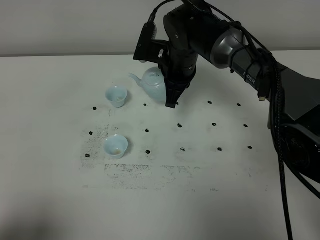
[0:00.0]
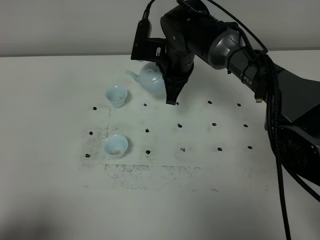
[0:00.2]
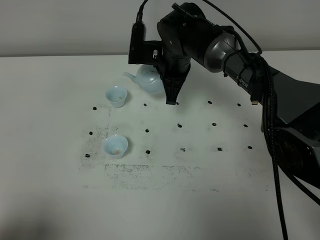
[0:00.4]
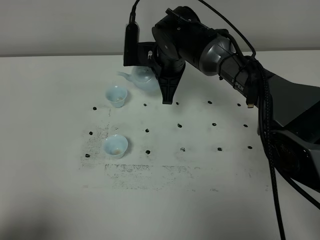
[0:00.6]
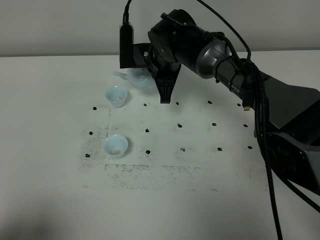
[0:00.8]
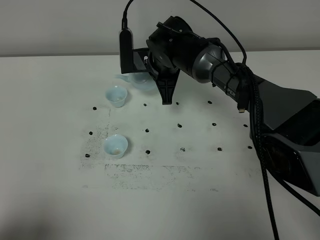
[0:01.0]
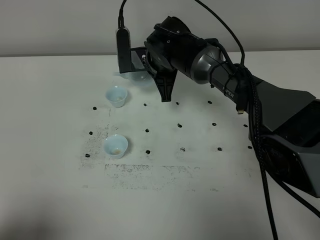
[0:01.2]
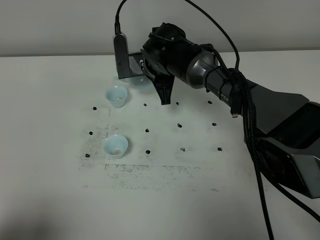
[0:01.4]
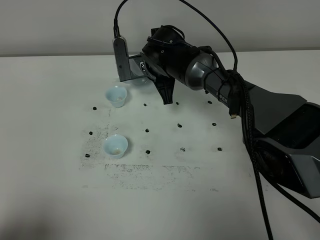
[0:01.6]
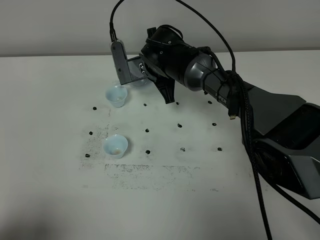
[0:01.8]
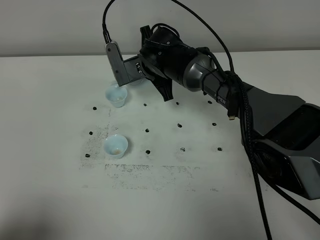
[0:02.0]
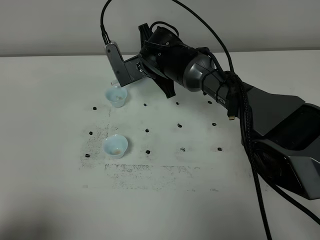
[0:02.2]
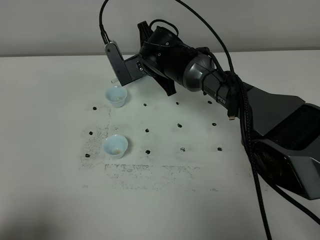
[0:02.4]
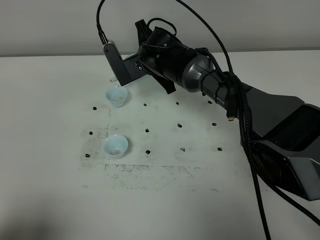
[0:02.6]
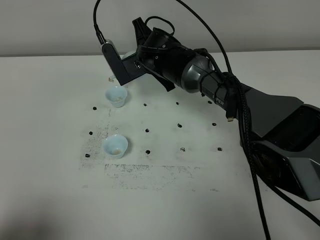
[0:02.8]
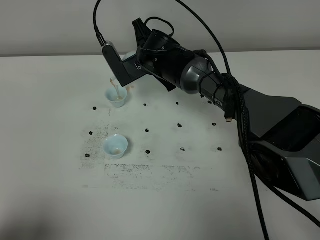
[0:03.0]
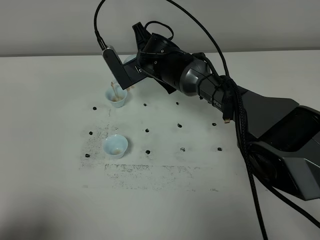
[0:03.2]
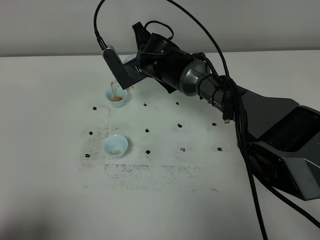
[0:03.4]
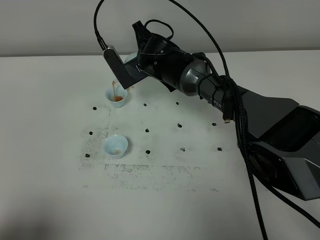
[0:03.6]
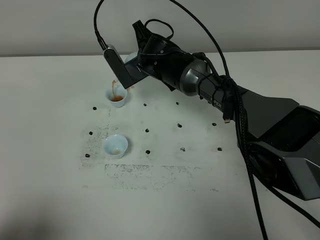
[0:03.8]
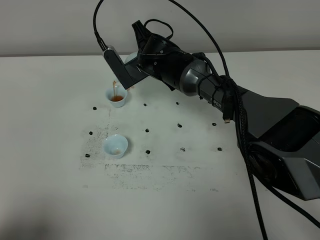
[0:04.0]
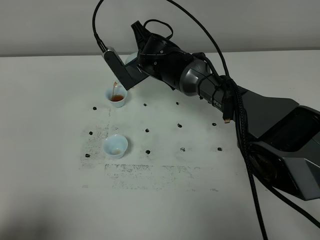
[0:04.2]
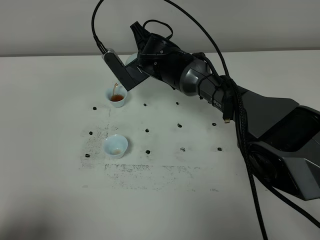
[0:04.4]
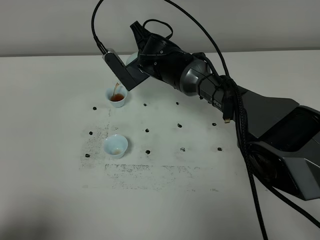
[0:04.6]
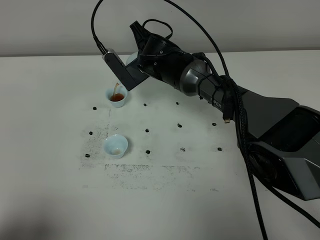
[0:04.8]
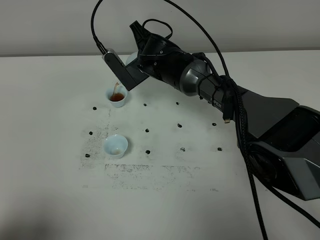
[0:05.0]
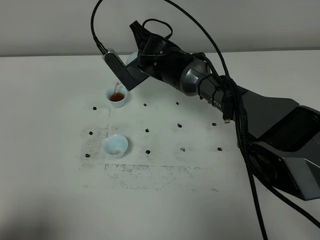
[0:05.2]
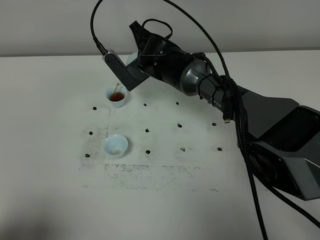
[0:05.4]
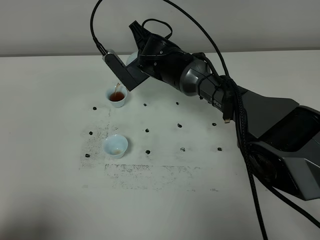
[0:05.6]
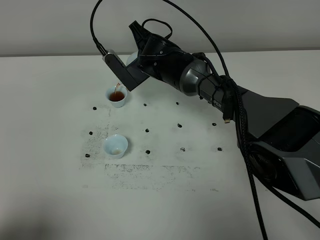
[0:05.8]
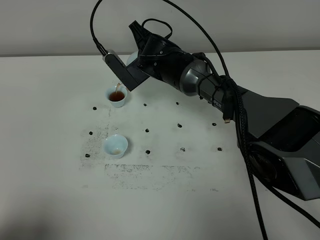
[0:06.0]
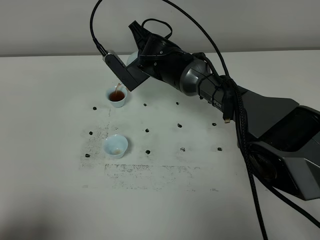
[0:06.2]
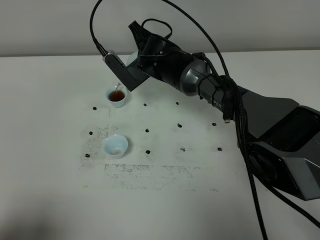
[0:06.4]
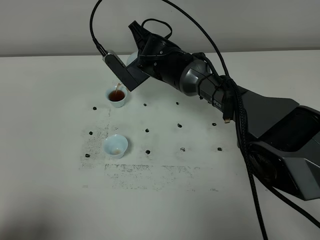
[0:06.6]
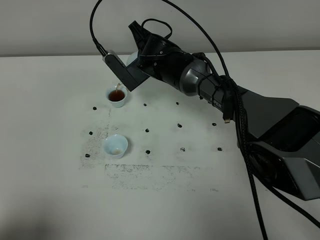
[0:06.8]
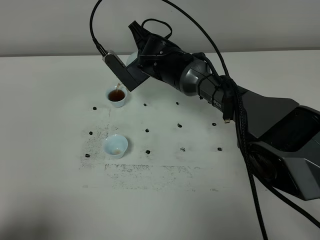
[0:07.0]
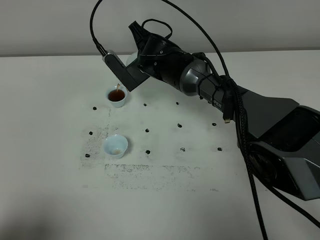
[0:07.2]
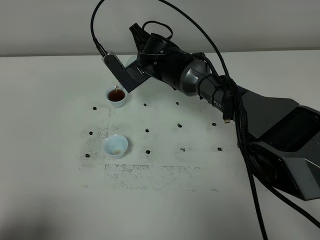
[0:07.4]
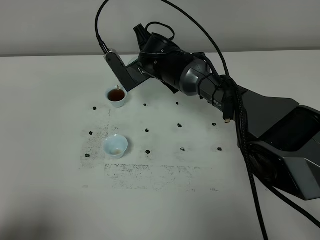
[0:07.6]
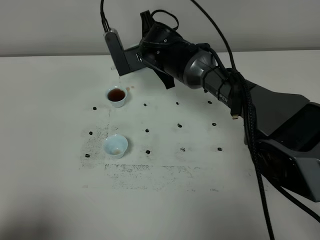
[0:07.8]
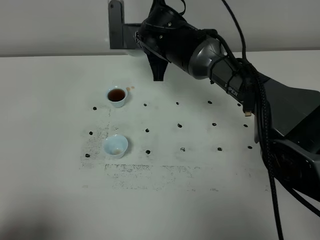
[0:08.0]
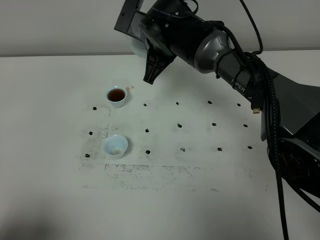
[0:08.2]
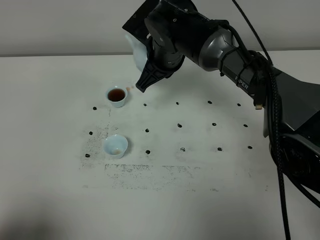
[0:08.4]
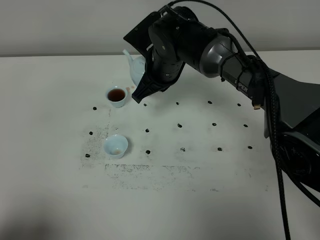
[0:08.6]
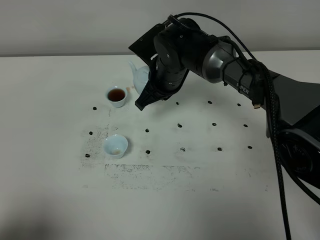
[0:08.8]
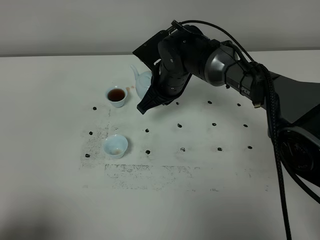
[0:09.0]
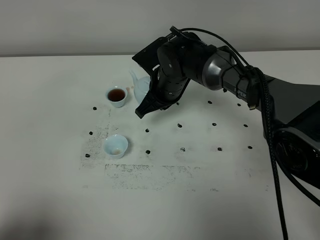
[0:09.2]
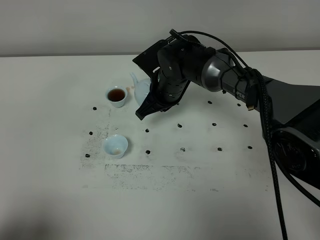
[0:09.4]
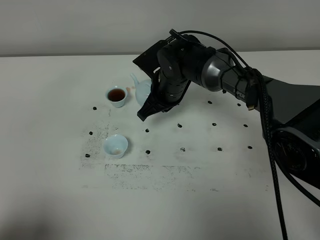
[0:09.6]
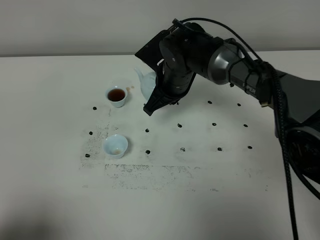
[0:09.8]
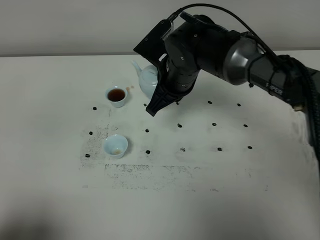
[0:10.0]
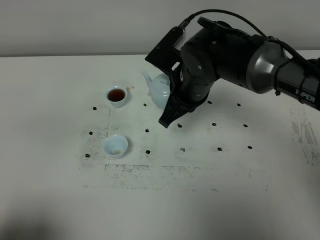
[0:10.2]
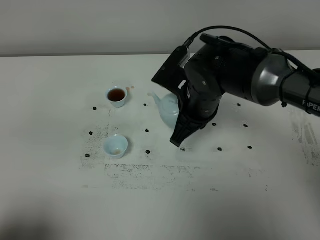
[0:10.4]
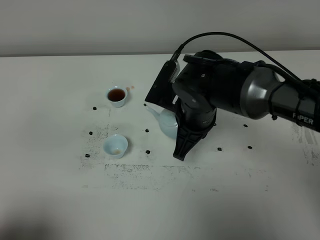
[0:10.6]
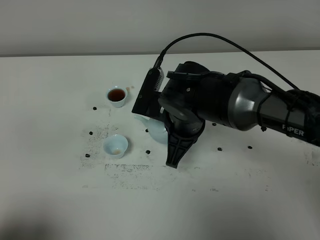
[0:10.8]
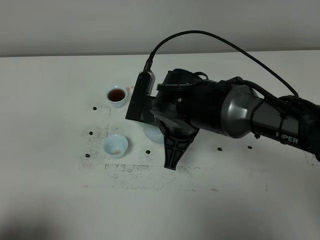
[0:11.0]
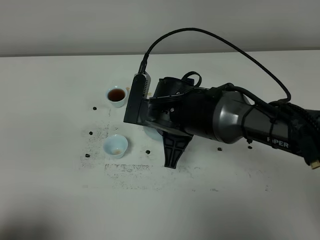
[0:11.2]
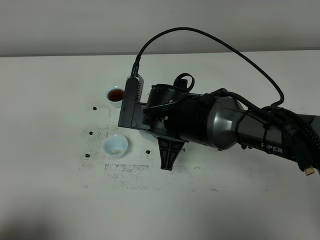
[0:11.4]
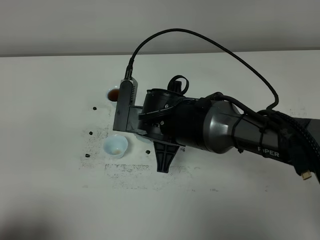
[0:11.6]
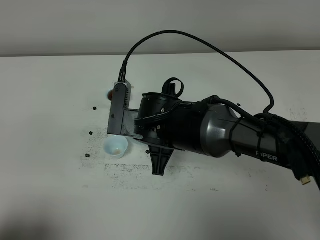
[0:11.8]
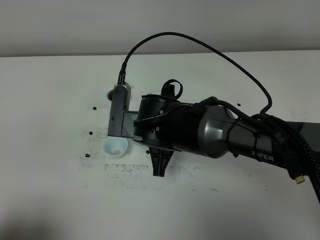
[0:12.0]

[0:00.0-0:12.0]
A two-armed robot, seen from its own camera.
Task of the whole recording: grasp the blue porcelain teapot and pour the tea into the two blue porcelain teacups one by one, put the blue porcelain teapot back in its original place.
0:00.0 to 0:01.6: The right gripper ends up approximately 5 cm from where it was.
0:03.0 to 0:04.4: The grippers move only a little.
0:04.4 to 0:06.0: Neither gripper changes place.
0:06.0 to 0:07.6: The grippers make only small movements.
0:07.6 to 0:09.0: The right gripper travels upward and back again, some 5 cm each way.
0:09.0 to 0:10.4: The right gripper shifts about 10 cm backward.
0:10.4 to 0:12.0: The right gripper moves to the left, approximately 5 cm.

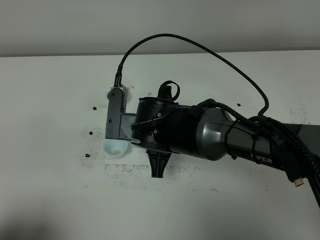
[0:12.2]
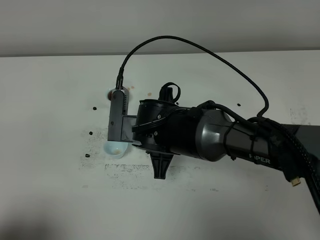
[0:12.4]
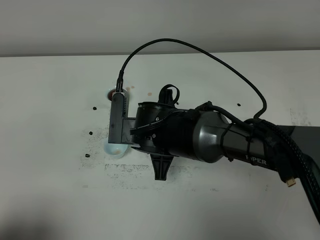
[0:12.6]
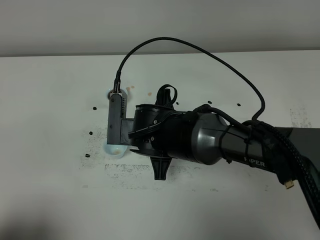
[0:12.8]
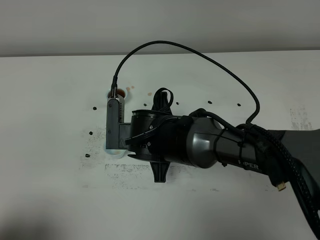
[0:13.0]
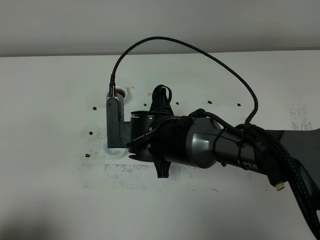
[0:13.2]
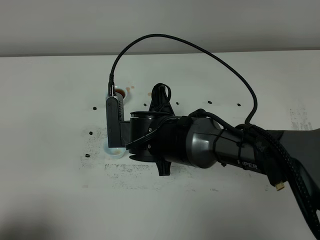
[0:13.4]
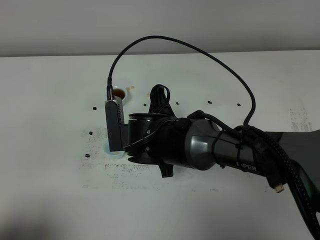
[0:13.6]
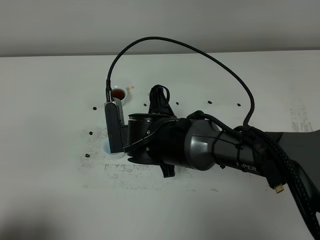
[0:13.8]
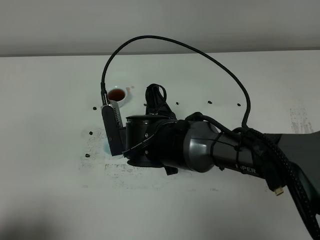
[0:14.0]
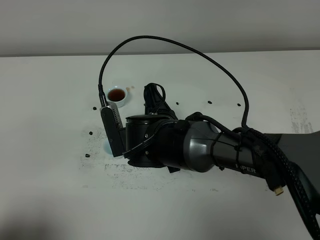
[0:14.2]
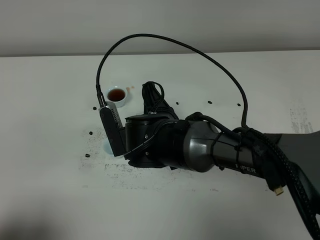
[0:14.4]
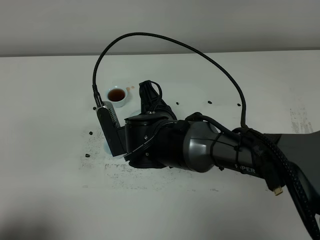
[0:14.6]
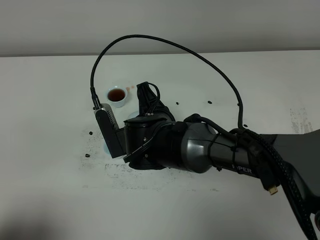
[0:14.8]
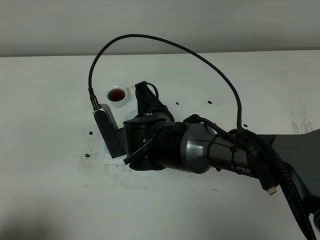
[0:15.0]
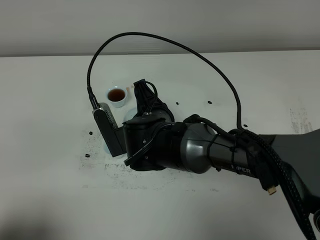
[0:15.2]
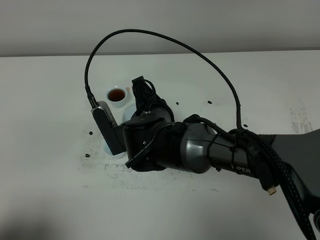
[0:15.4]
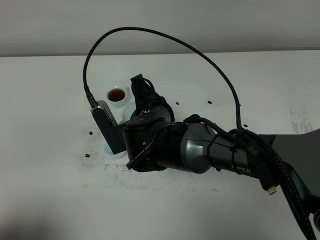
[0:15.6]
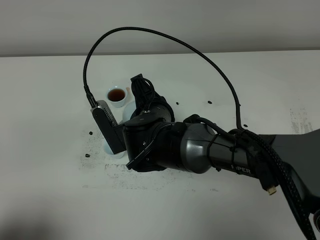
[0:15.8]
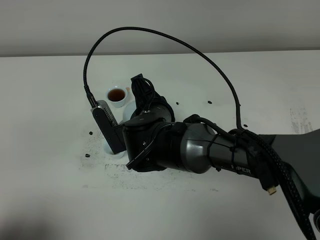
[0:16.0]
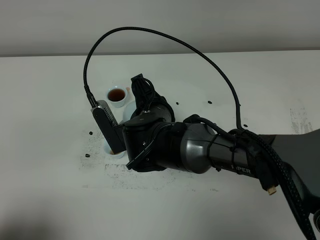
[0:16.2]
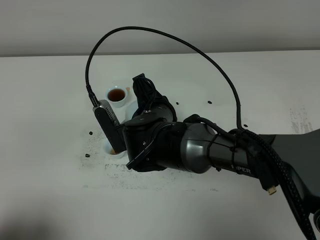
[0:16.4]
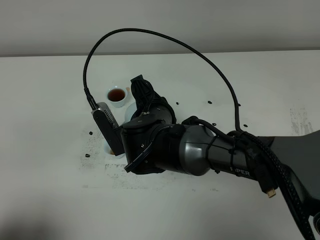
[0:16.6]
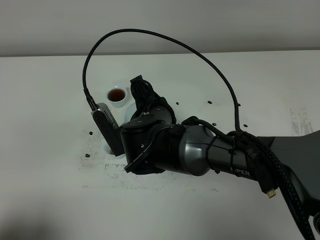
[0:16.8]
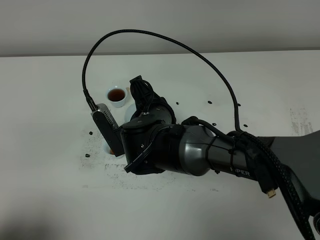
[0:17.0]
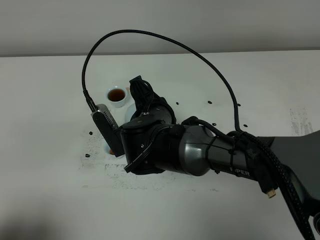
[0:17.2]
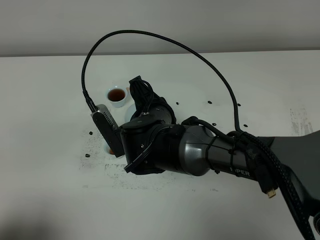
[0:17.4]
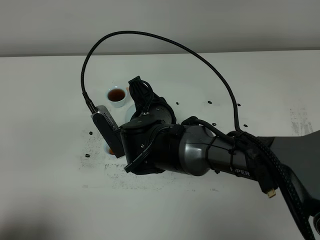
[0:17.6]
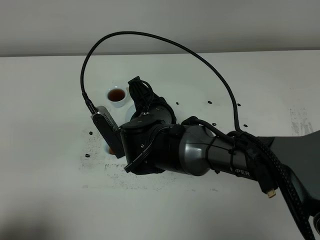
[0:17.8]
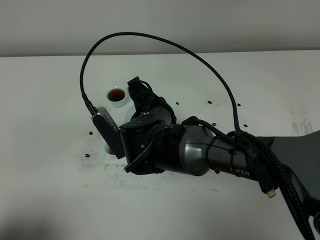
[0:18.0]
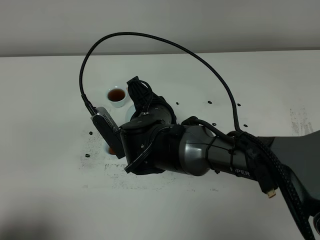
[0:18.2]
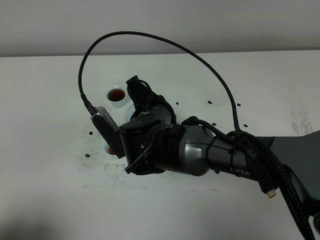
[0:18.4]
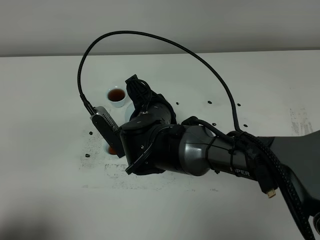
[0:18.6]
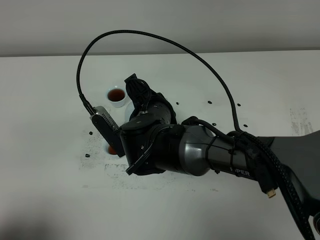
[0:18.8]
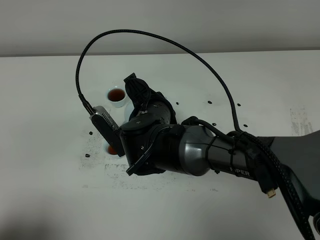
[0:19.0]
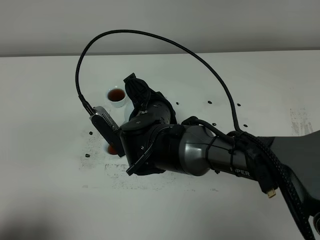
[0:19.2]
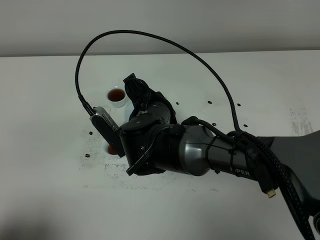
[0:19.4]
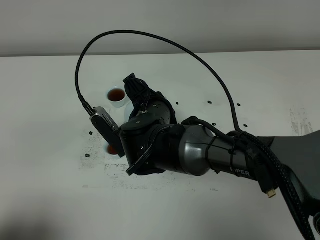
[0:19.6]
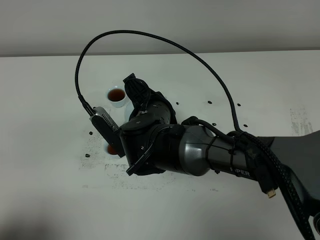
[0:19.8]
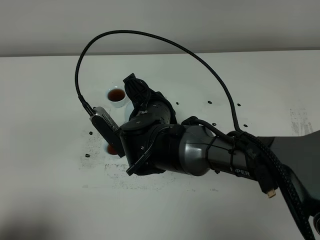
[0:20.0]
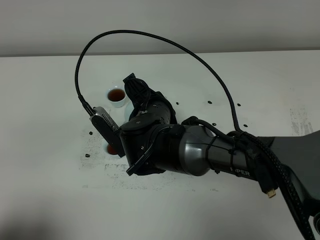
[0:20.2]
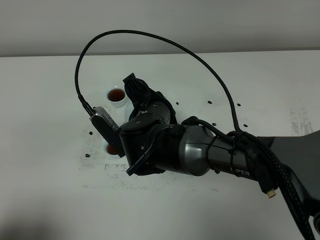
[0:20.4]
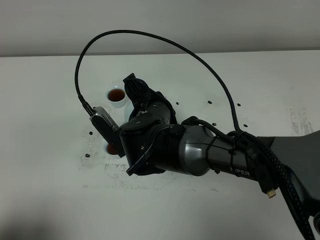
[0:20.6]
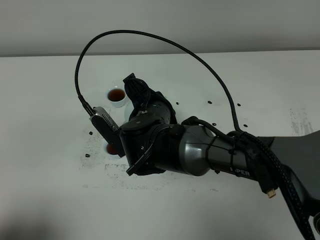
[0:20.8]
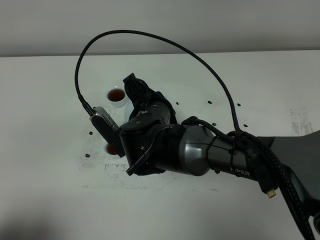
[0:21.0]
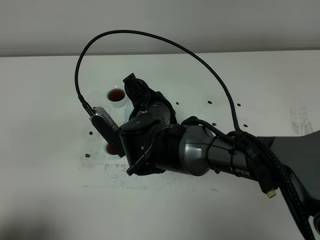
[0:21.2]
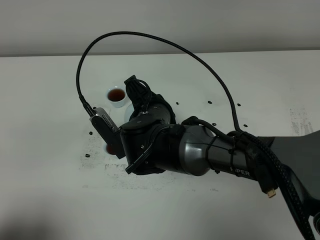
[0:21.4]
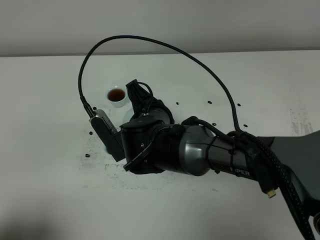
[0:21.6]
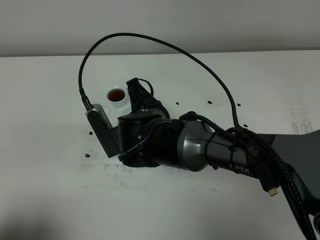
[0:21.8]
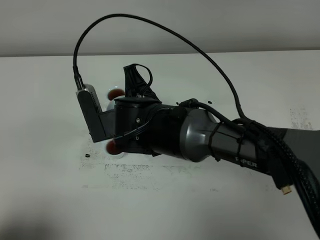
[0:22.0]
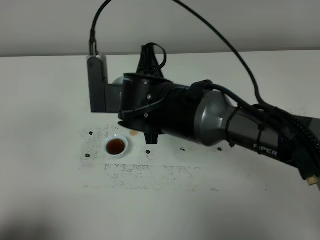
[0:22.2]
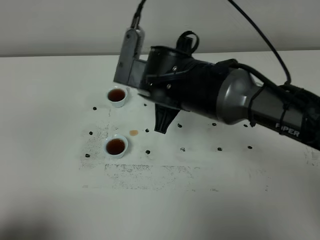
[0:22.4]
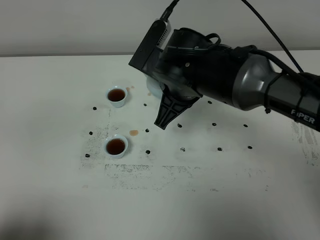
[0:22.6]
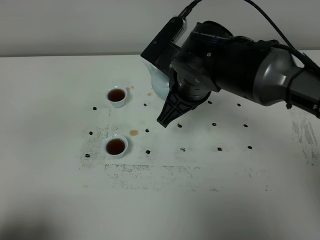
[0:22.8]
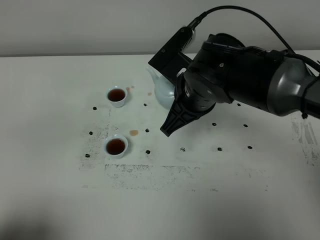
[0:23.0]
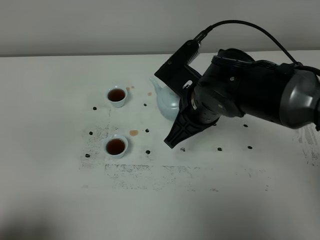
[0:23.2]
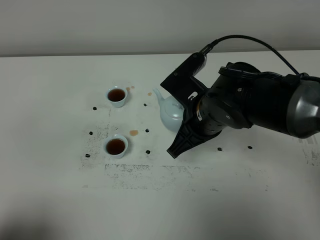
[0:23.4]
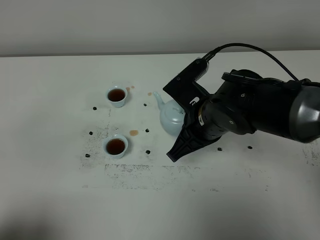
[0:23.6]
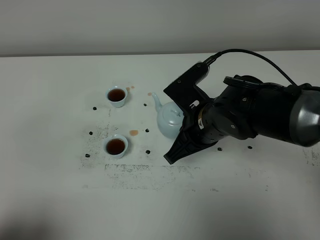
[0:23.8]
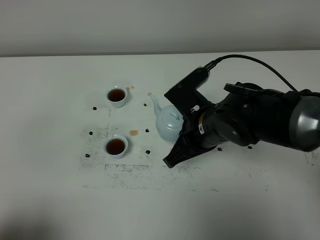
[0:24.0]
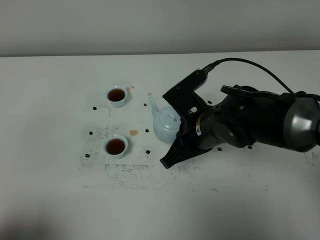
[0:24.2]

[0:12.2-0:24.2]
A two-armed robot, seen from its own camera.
Task of the whole recording: grasp the blue porcelain teapot and pour the tea into the two blue porcelain teacups one by one, put the blue porcelain teapot back in its original place.
Step, 0:12.2 to 0:22.0: Pour tea into the teacup with the right gripper.
0:12.2 to 0:13.8: The grippers make only small movements.
0:13.8 to 0:15.2: There are only small adjustments of the grippers.
0:15.2 to 0:18.2: There are only small adjustments of the grippers.
0:18.2 to 0:21.2: The two grippers keep their place.
0:21.2 to 0:22.6: The right gripper travels upward and to the right by some 10 cm.
0:22.6 to 0:24.2: The right gripper is displaced downward by roughly 5 cm.
